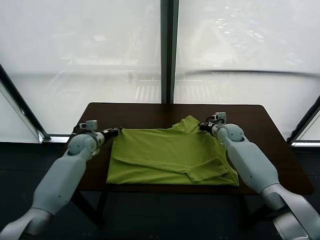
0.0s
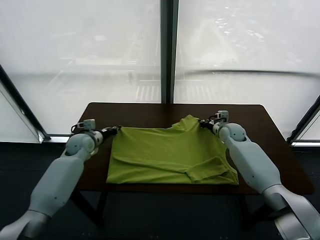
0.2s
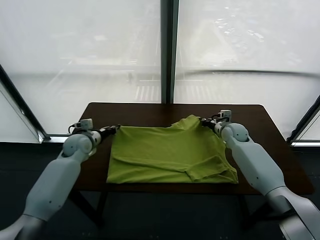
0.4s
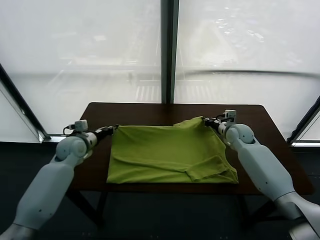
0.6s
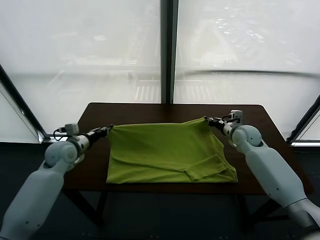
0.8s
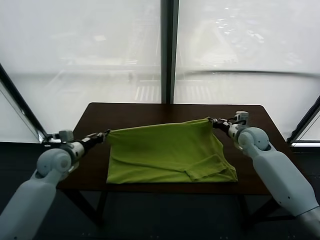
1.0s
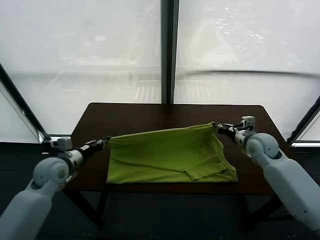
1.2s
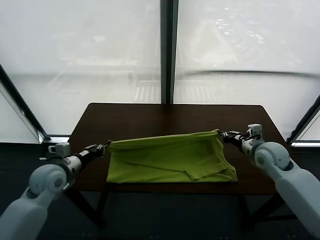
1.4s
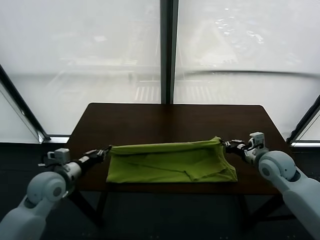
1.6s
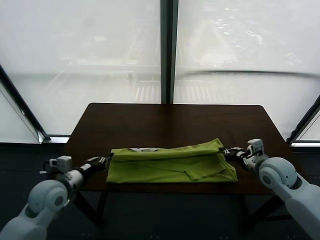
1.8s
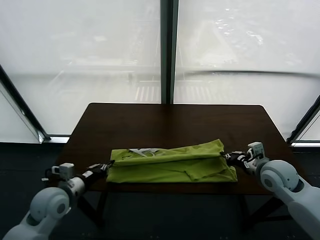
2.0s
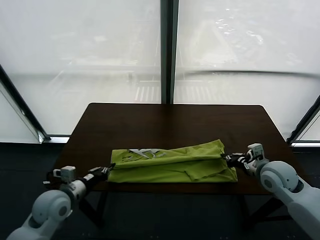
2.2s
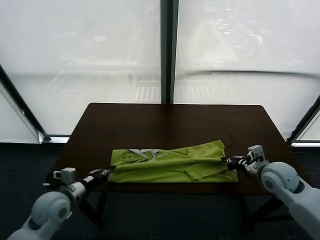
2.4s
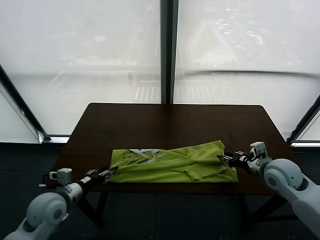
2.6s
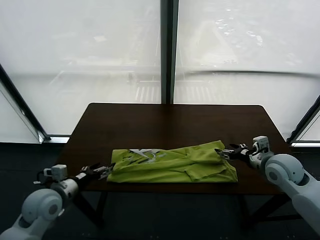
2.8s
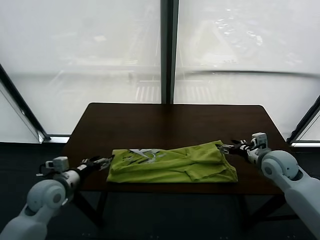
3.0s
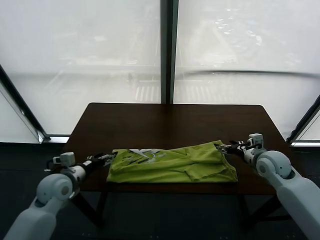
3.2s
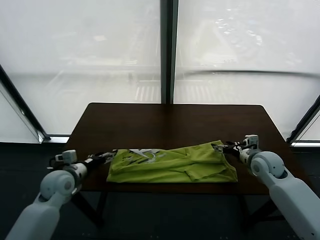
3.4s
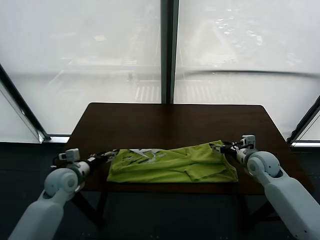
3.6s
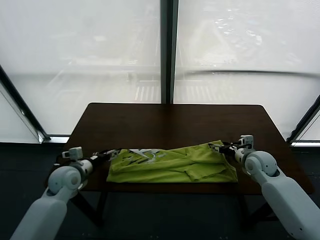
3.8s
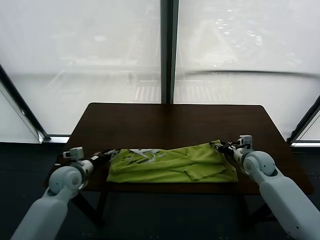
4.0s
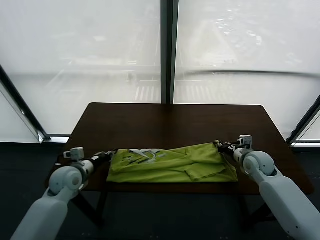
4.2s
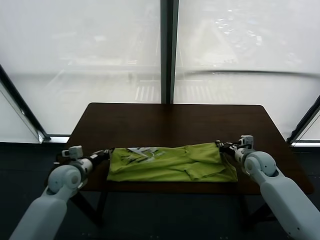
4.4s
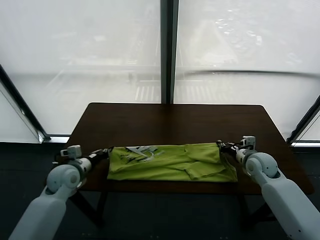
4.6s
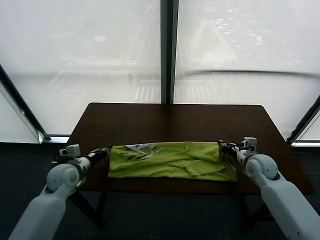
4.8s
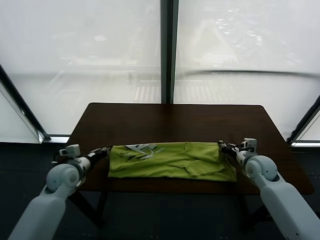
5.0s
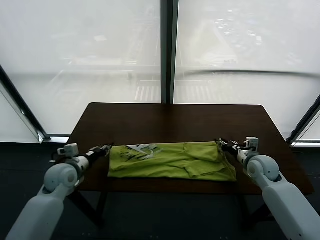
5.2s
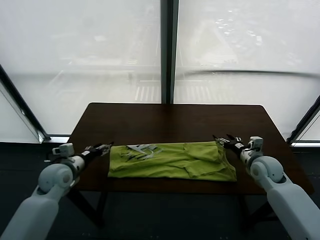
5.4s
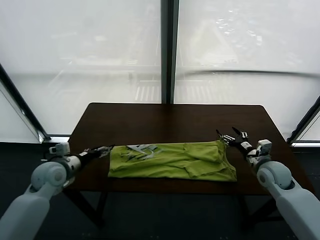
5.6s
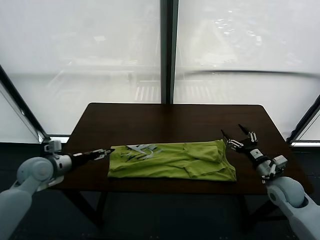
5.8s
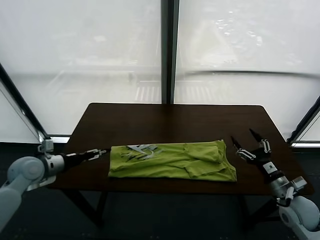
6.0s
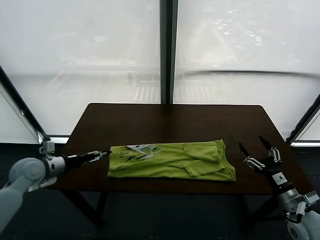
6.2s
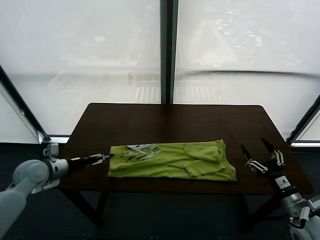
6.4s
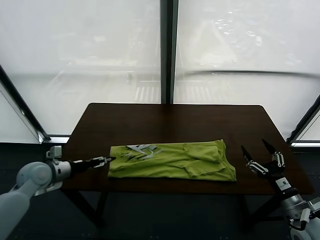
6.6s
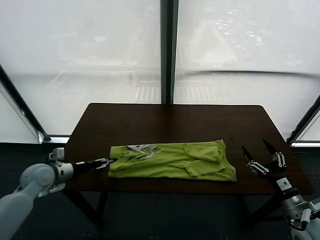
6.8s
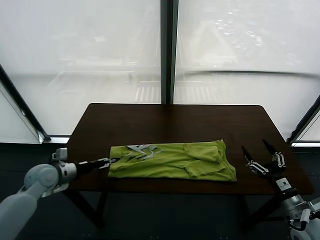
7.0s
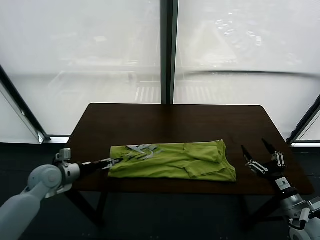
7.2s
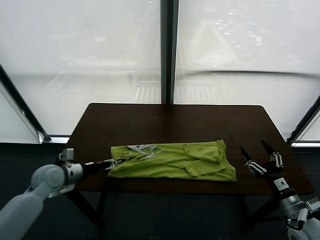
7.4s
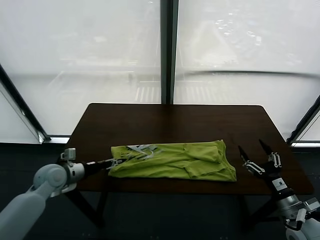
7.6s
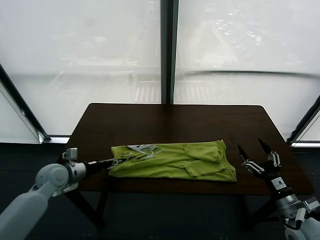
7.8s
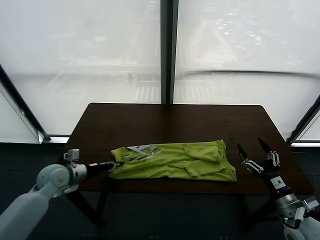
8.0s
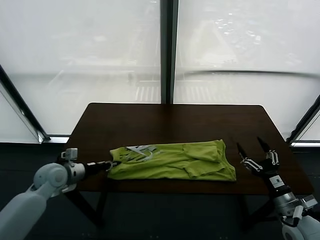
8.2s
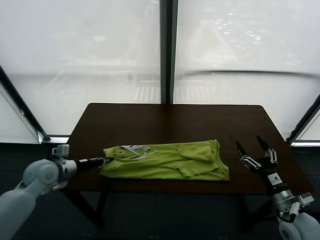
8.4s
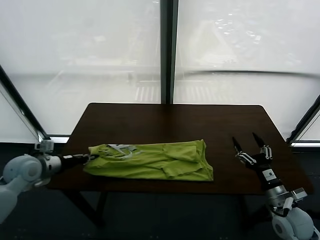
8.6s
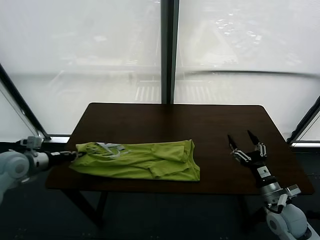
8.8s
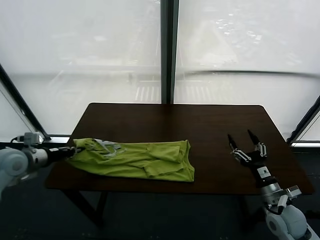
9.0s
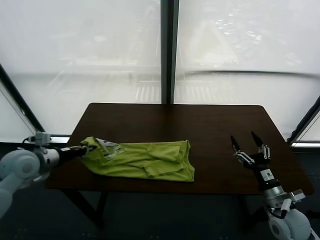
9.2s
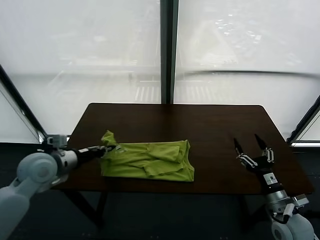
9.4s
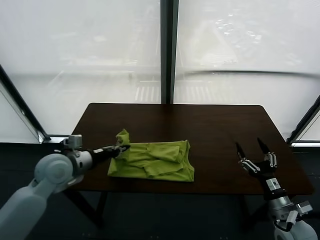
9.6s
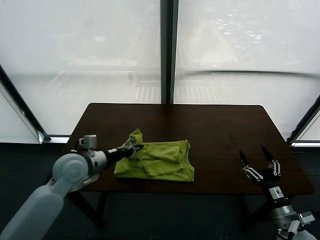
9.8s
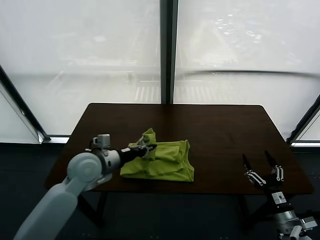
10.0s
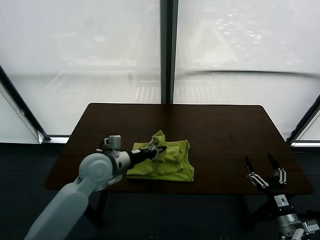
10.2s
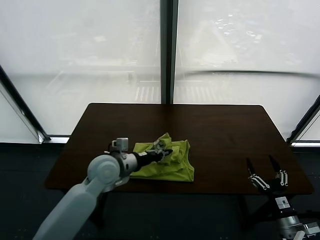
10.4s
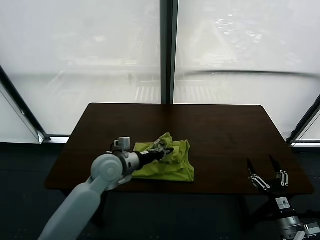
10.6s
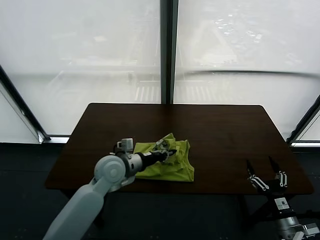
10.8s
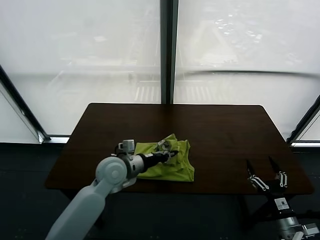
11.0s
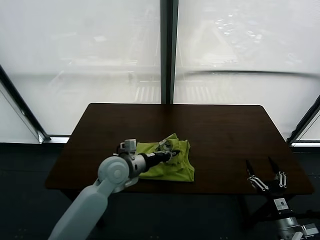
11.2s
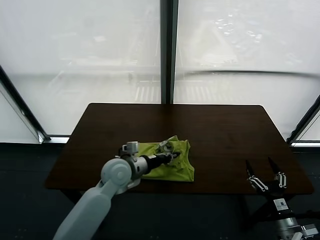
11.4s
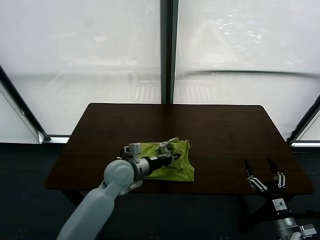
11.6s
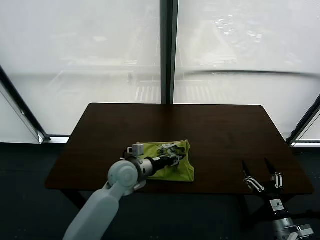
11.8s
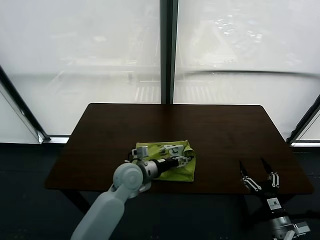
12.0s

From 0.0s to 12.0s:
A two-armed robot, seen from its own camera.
Task of the whole recording: fold and organize the clothes.
Step, from 0.2s to 2.6s: use both grippers to drag the upper edge of the fabric backward and fold it over the lower edge.
Step, from 2.8s to 8.2s: use the left gripper to clamp the left edge of the fabric.
From 0.0s to 1.6s: The grippers both shift backward by about 20 cm.
From 1.6s to 3.0s: The left gripper opens; the right gripper changes place by about 5 cm, and opens its fingers.
From 3.0s to 4.4s: The right gripper changes place by some 5 cm, and closes. The left gripper moves forward, some 5 cm, and closes.
From 4.4s to 6.0s: The right gripper heads backward, covering roughly 20 cm, and opens up; the left gripper moves to the left and upward, approximately 10 cm, and opens up.
From 6.0s to 7.6s: The left gripper shifts roughly 5 cm downward and to the right.
From 7.6s to 9.0s: The left gripper shifts some 15 cm upward and to the left, and closes.
From 9.0s to 10.4s: The right gripper goes roughly 10 cm backward. The left gripper moves to the right, approximately 25 cm.
From 10.4s to 12.0s: The left gripper goes about 5 cm to the right, and opens its fingers.

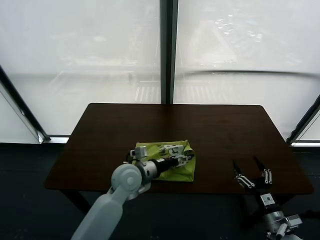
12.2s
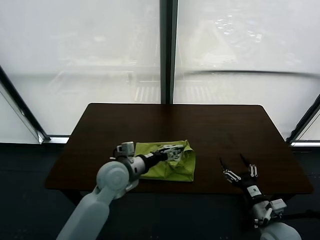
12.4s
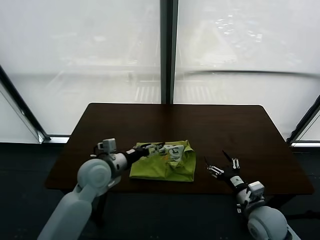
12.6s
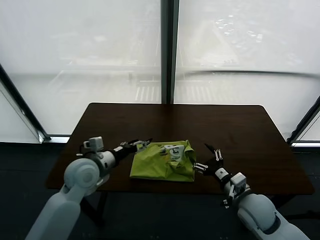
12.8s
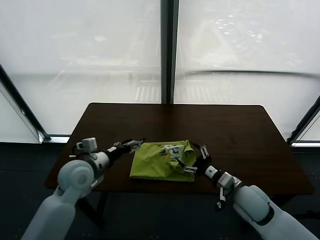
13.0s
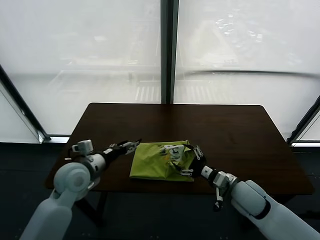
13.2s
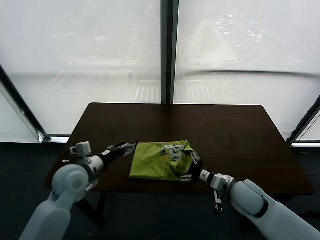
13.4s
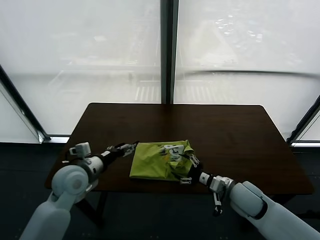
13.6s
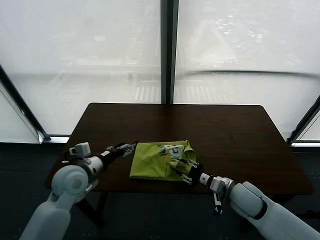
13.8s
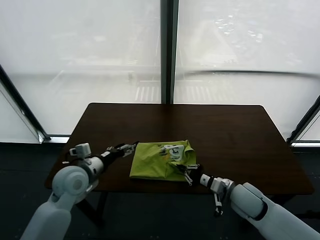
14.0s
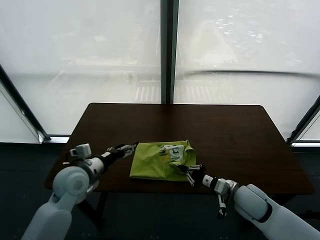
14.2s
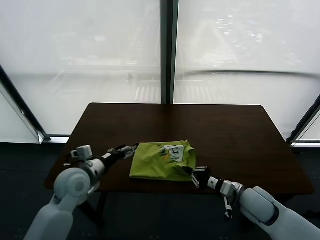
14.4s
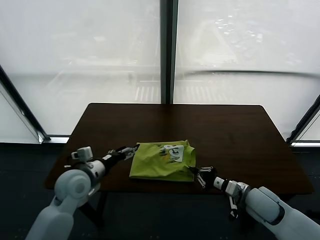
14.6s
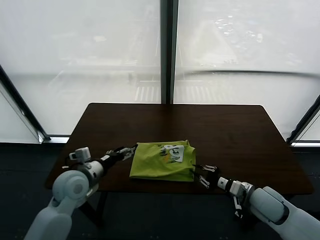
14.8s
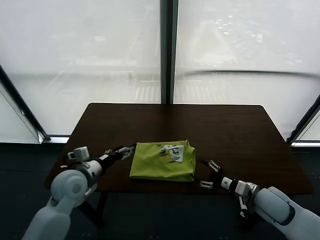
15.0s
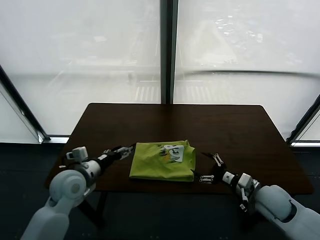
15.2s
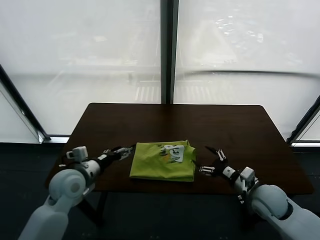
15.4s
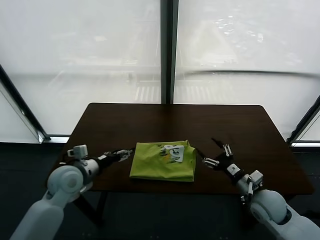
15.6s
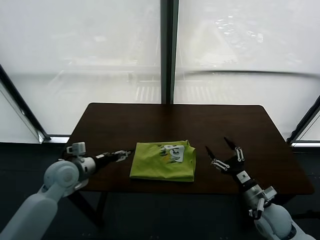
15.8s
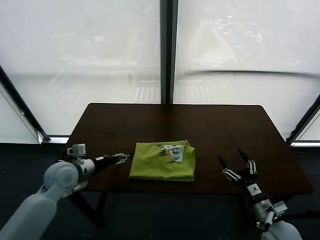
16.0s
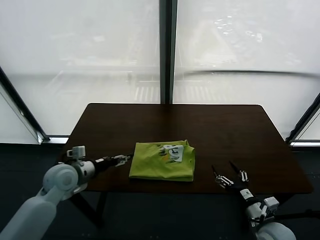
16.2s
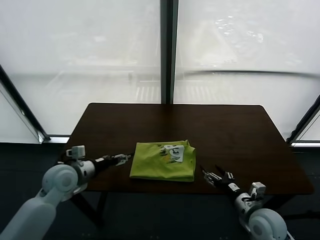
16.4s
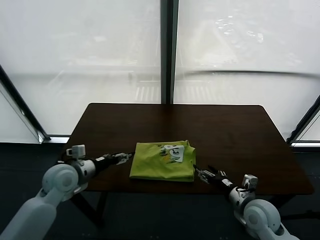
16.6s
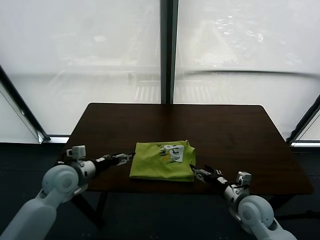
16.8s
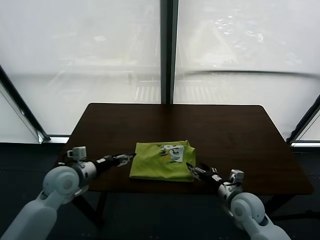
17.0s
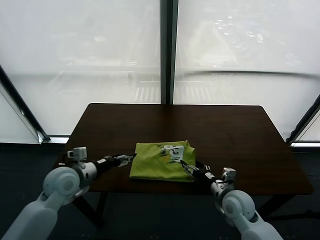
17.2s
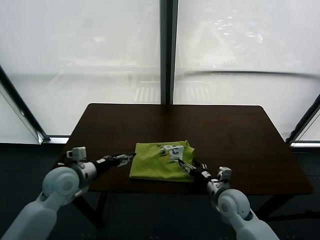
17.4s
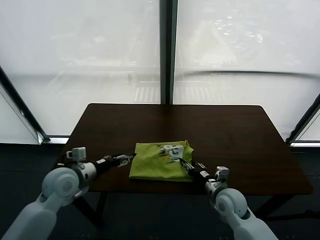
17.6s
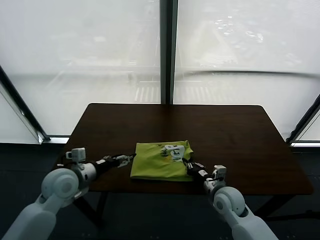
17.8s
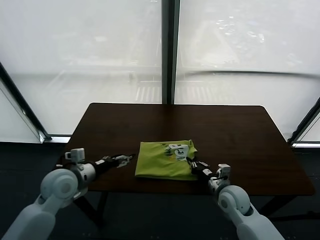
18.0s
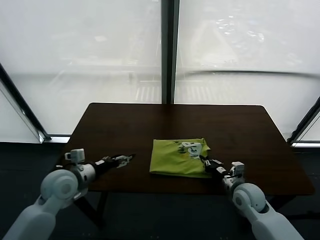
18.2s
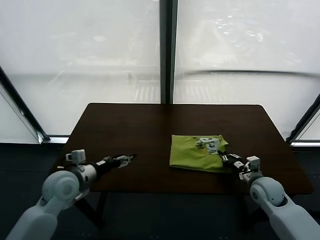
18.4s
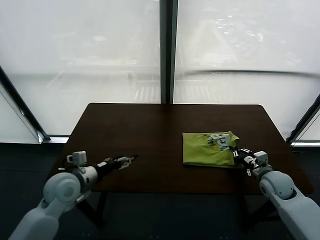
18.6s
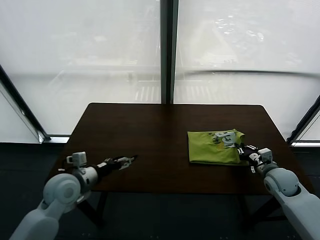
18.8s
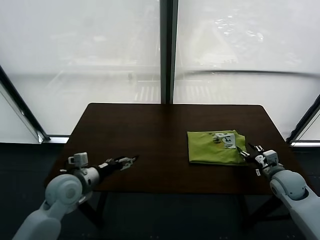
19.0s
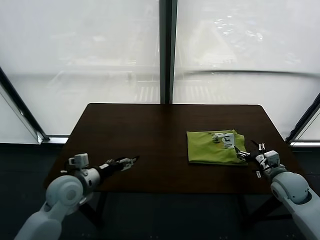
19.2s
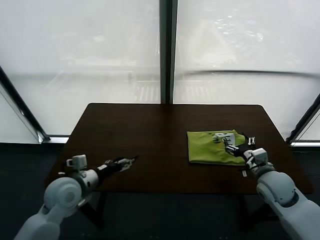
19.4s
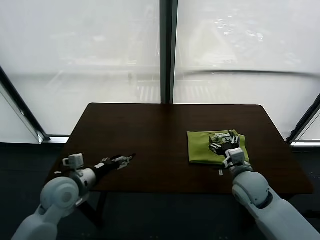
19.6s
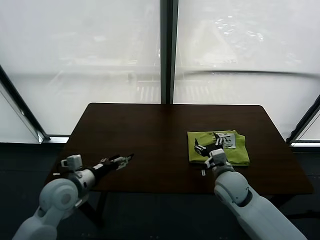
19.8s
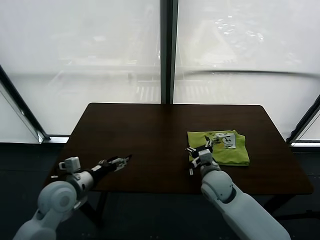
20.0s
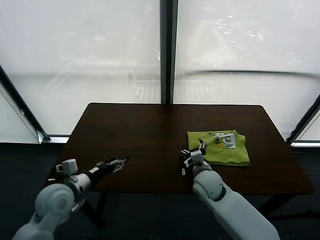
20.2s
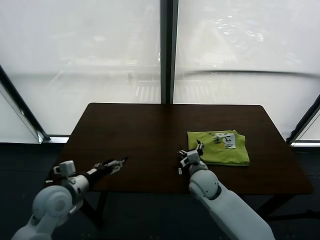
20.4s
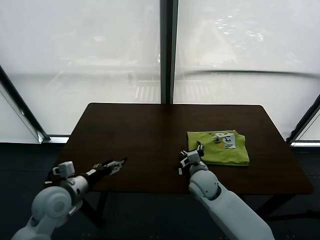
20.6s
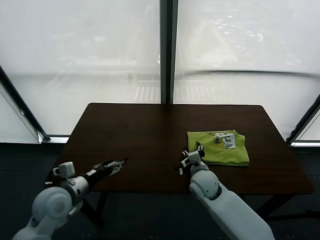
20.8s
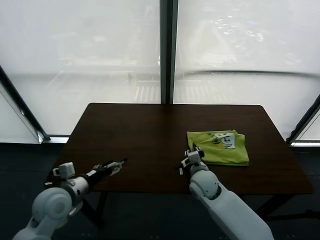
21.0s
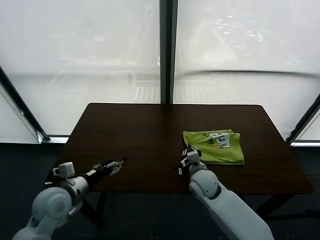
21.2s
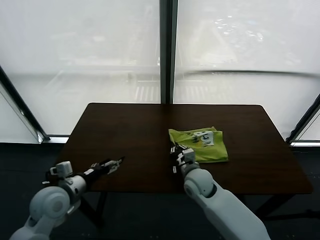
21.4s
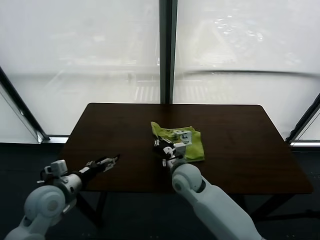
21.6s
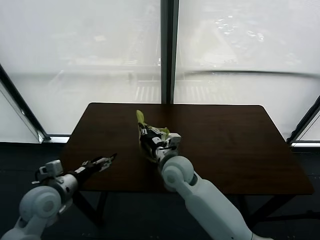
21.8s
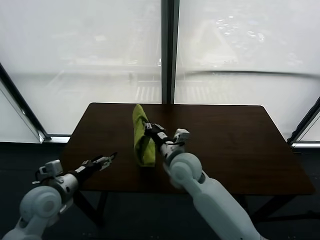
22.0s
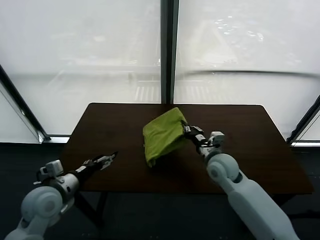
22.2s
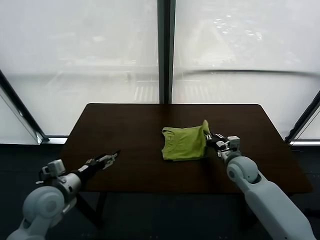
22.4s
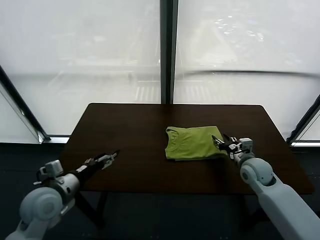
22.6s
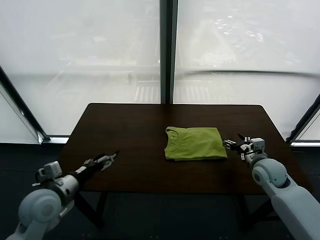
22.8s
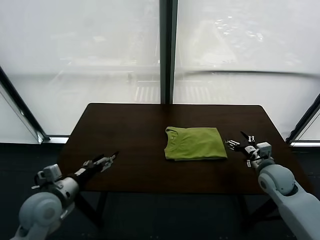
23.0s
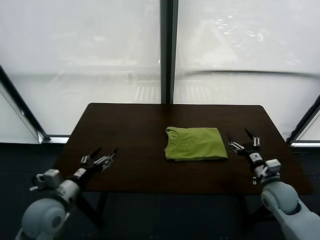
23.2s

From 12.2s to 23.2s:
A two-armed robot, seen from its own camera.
Task of the whole recording: fold and organize the clothes.
Step, from 12.4s to 19.0s: Drag the clothes to the center of the table.
Step, from 19.2s to 22.6s: Flip the folded clothes over with right gripper.
From 12.2s to 13.8s: The right gripper heads forward and to the left, covering roughly 15 cm, and closes its fingers. The left gripper travels to the left by roughly 15 cm.
From 13.8s to 15.4s: The right gripper moves to the right, some 5 cm, and opens.
From 15.4s to 17.0s: The right gripper goes some 5 cm to the left, and moves approximately 10 cm backward and comes back.
From 17.0s to 18.4s: The right gripper is displaced to the right and forward by approximately 10 cm, and closes.
From 18.4s to 20.0s: The right gripper is displaced to the left by some 20 cm, and opens up.
From 20.0s to 21.6s: The right gripper travels to the left by some 10 cm, and closes up.
From 21.6s to 23.2s: The right gripper travels to the right by approximately 30 cm, and opens its fingers.
